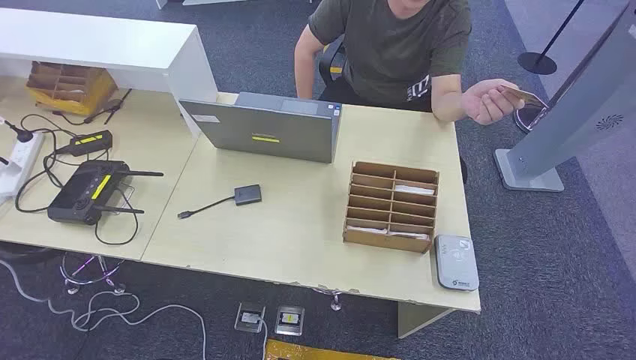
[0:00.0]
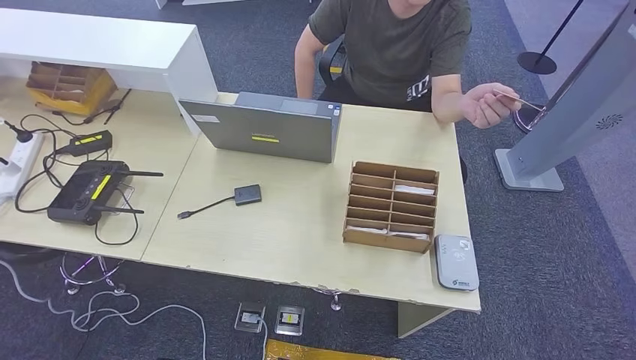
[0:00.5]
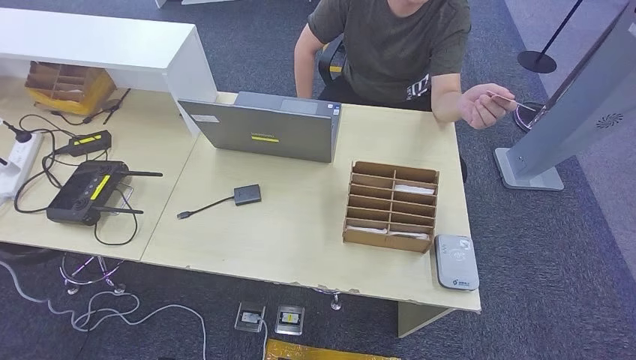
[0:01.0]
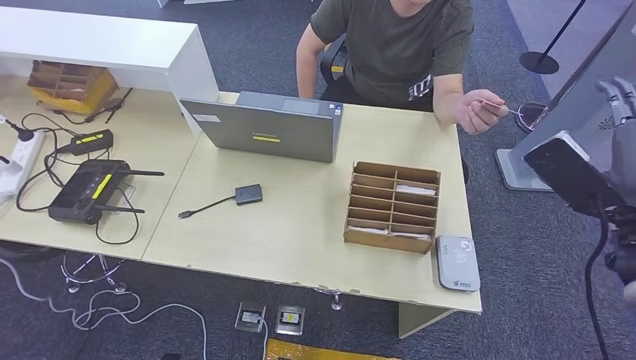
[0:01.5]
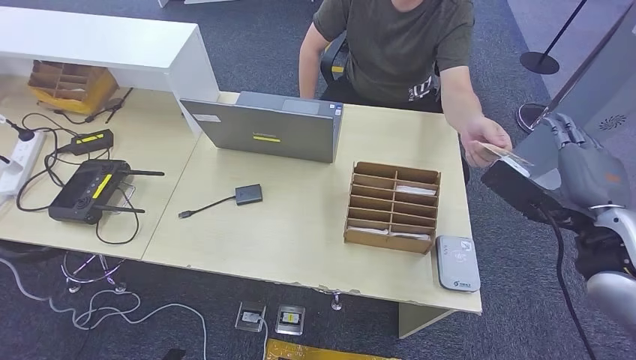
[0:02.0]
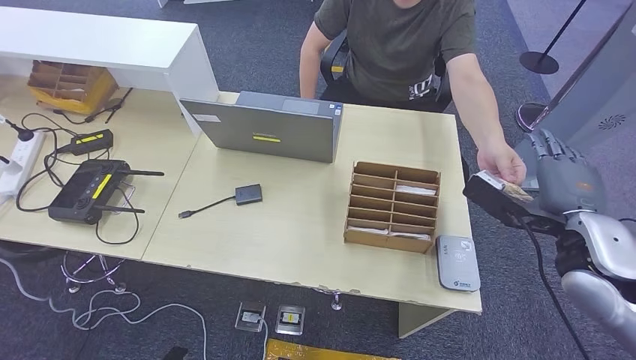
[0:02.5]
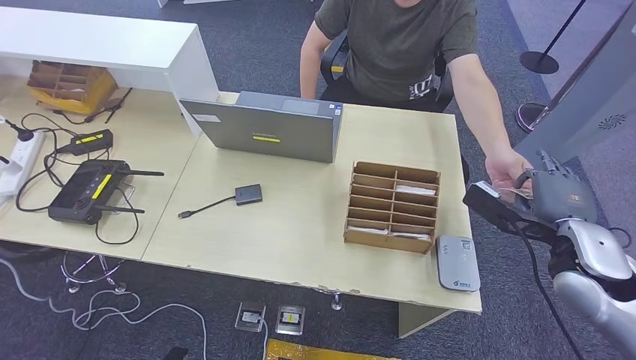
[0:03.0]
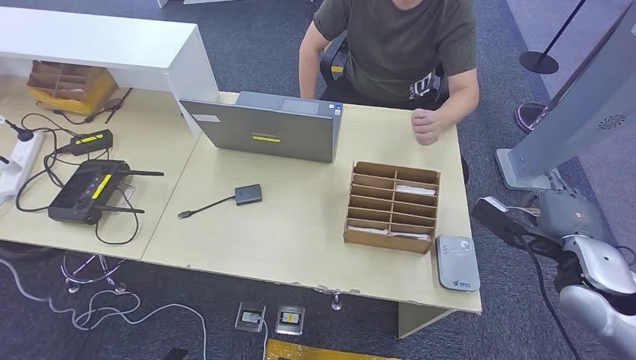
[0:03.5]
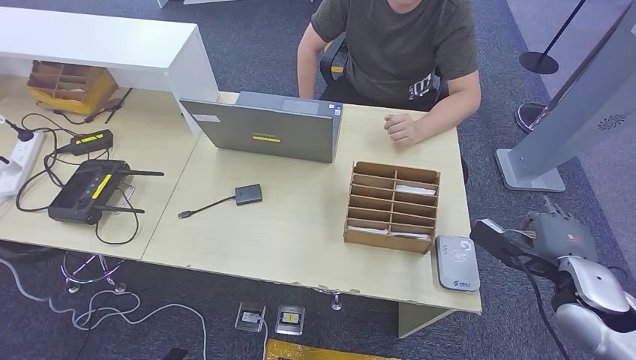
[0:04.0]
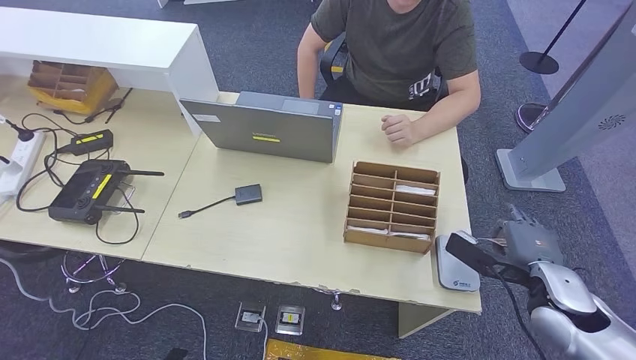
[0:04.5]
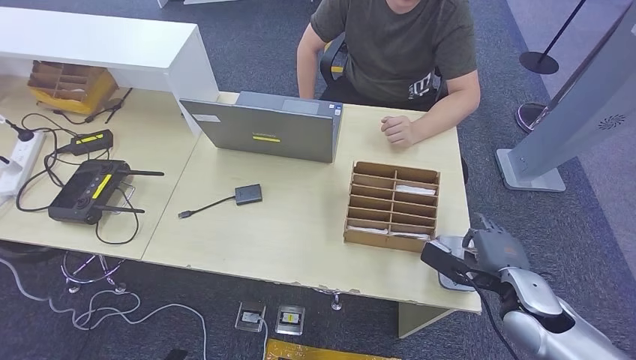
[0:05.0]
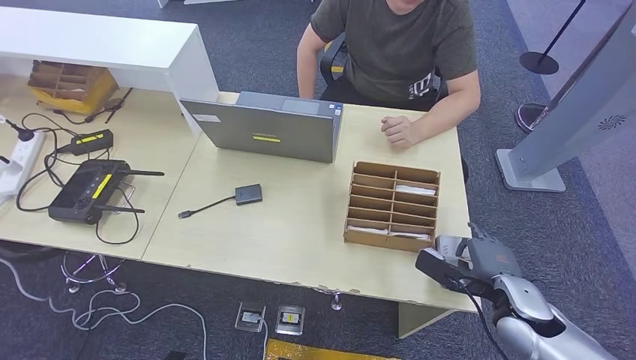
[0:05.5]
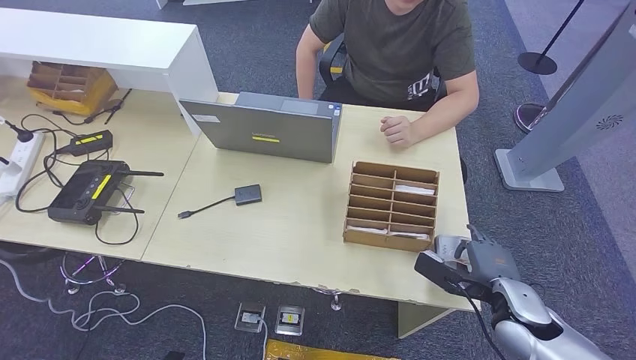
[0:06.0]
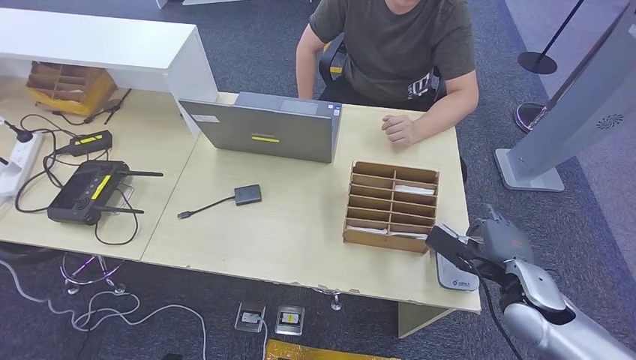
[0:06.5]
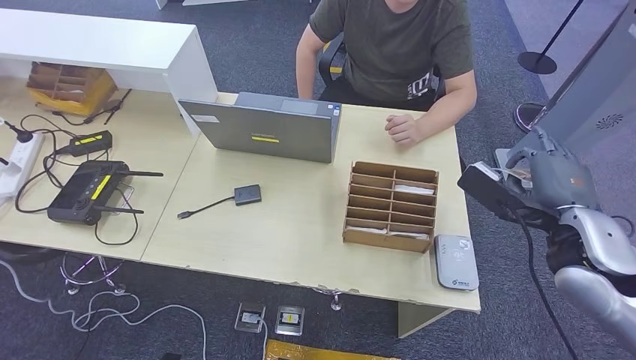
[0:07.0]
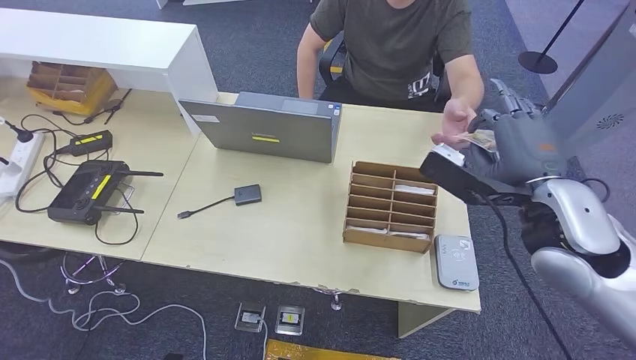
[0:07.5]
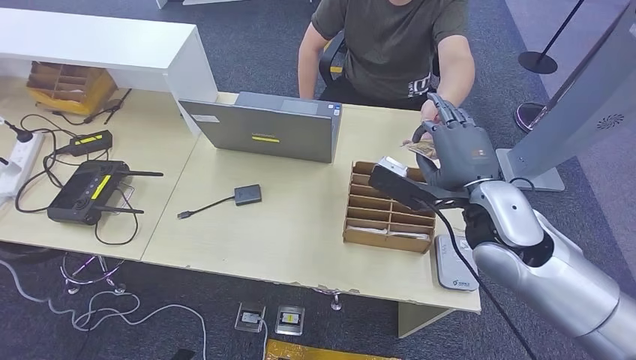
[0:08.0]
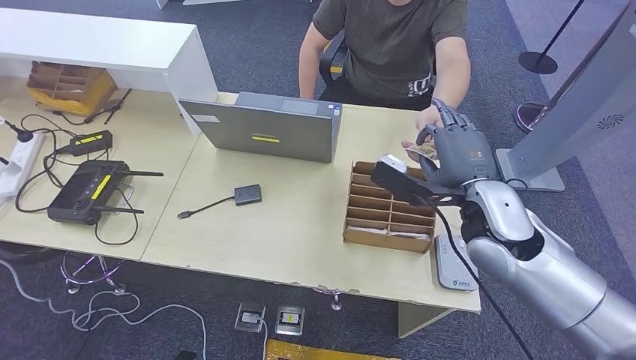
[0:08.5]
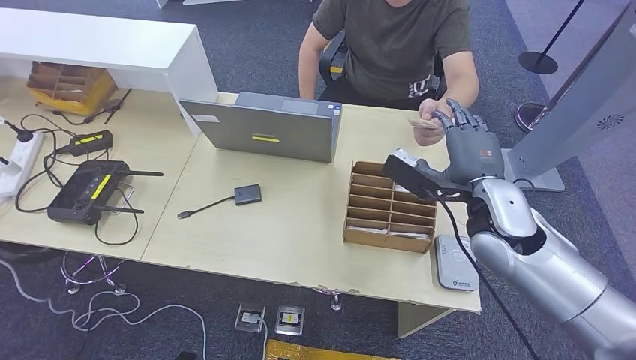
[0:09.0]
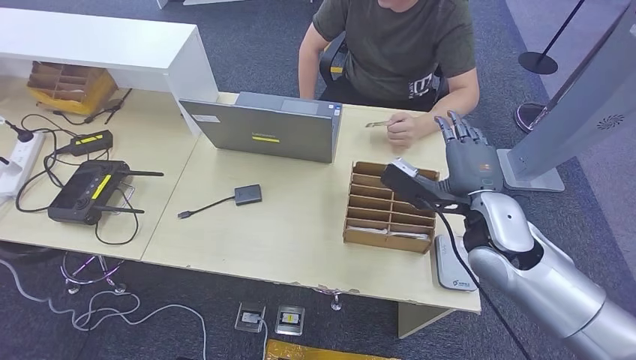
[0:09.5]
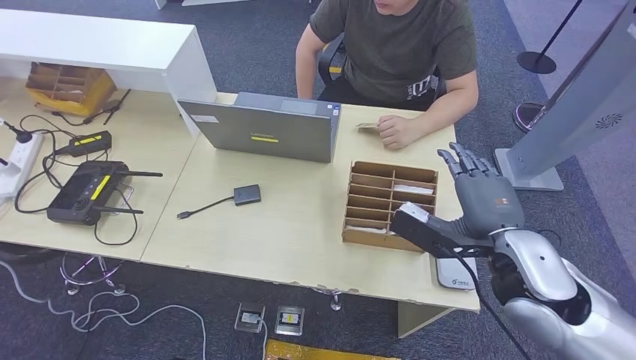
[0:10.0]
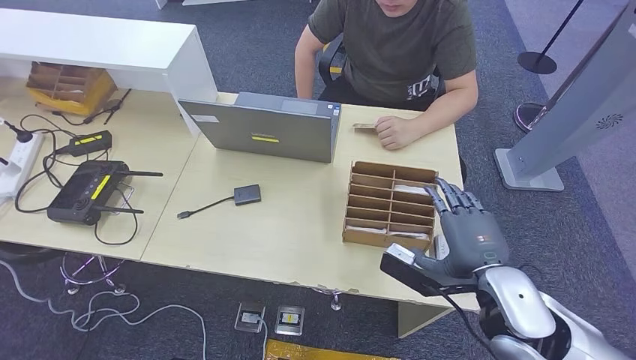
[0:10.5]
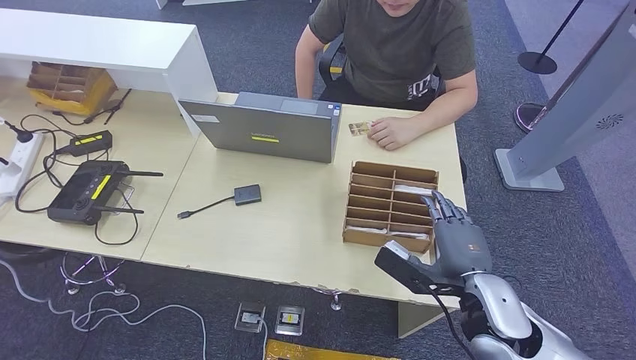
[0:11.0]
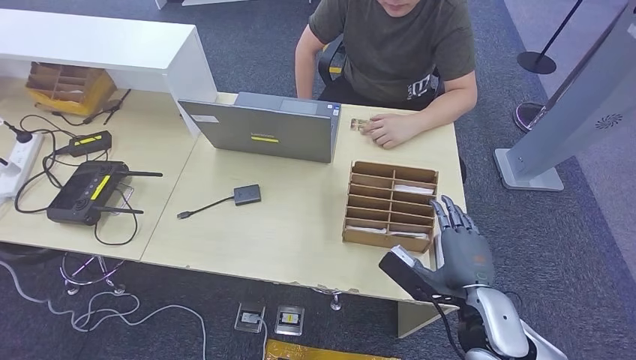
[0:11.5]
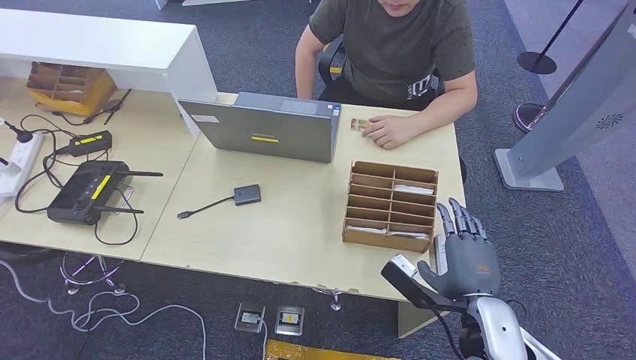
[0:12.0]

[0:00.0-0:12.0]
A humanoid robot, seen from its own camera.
Step, 0:00.0 to 0:03.5: Take the ID card from the person's hand.
Step, 0:04.0 to 0:06.0: Place the ID card on the card reader.
Step, 0:06.5 to 0:09.0: Hand the ID card to the person.
0:02.0 to 0:04.0: The right hand heads downward, covering about 10 cm.
0:04.0 to 0:06.0: The right hand shifts some 10 cm downward and to the left.
0:06.0 to 0:08.0: The right hand moves upward and to the left, approximately 20 cm.
0:08.0 to 0:10.0: The right hand travels backward by about 5 cm.
0:10.0 to 0:12.0: The right hand travels downward and backward by approximately 15 cm.

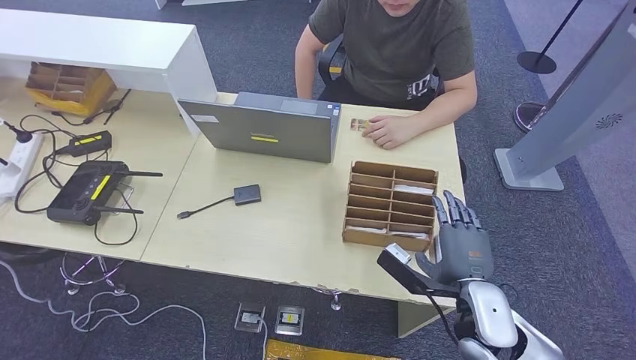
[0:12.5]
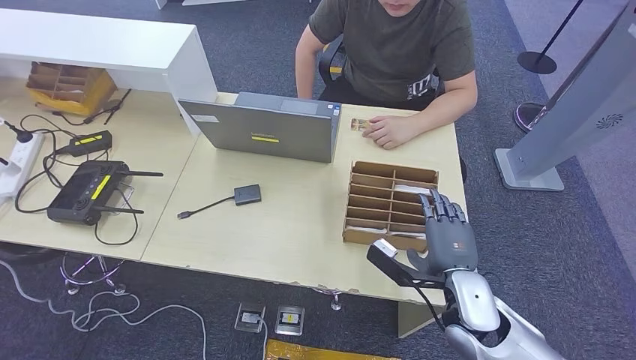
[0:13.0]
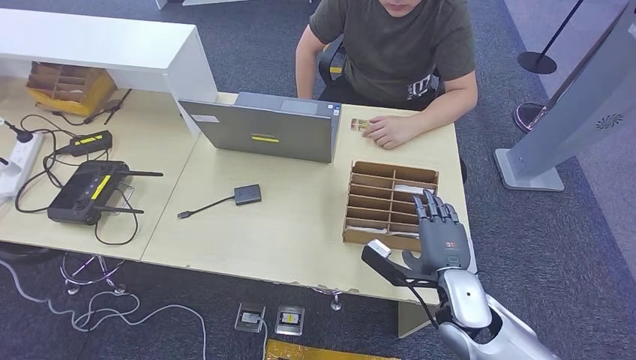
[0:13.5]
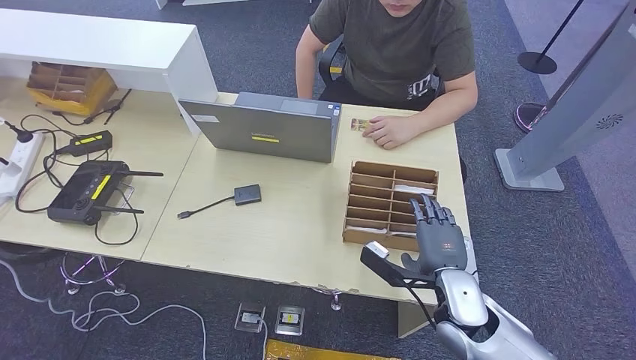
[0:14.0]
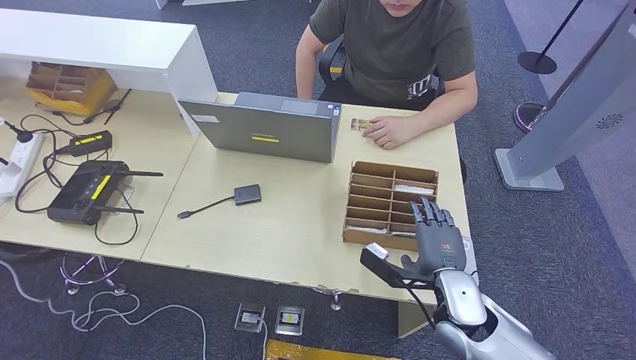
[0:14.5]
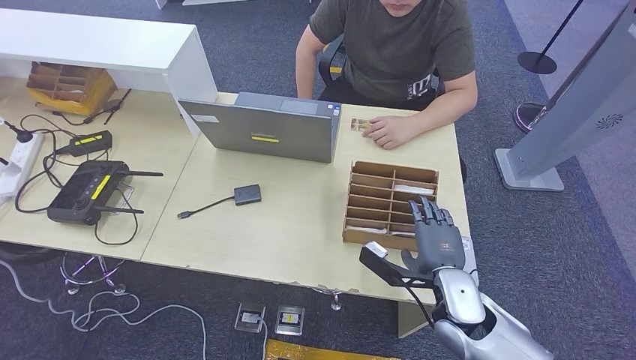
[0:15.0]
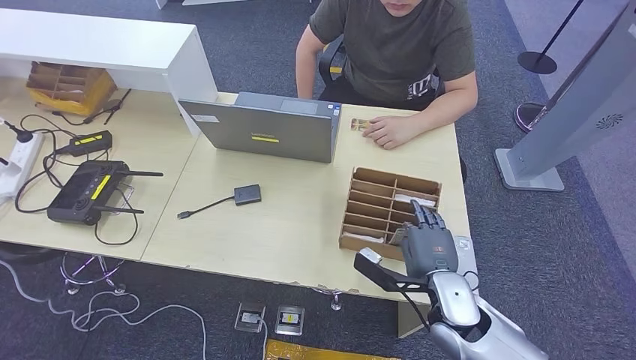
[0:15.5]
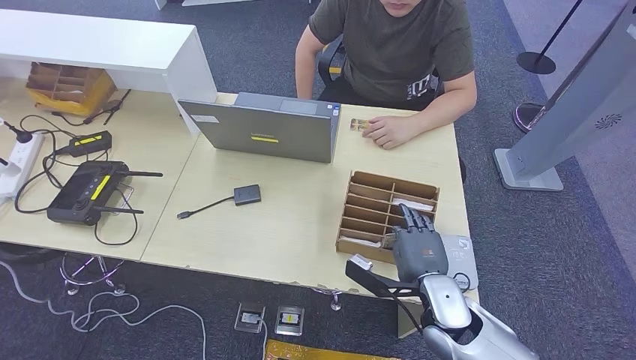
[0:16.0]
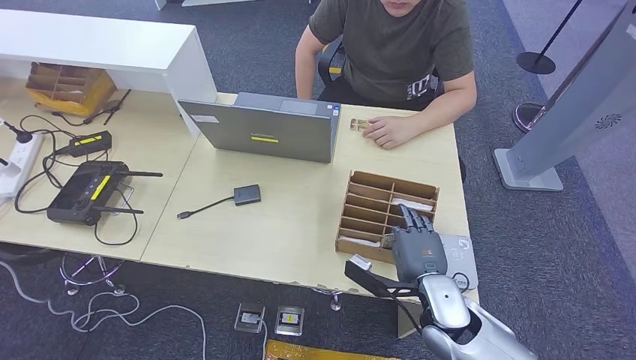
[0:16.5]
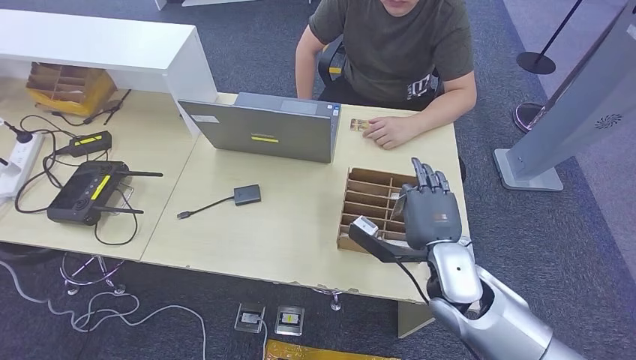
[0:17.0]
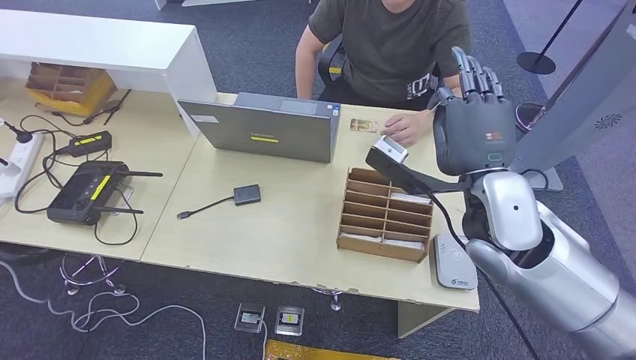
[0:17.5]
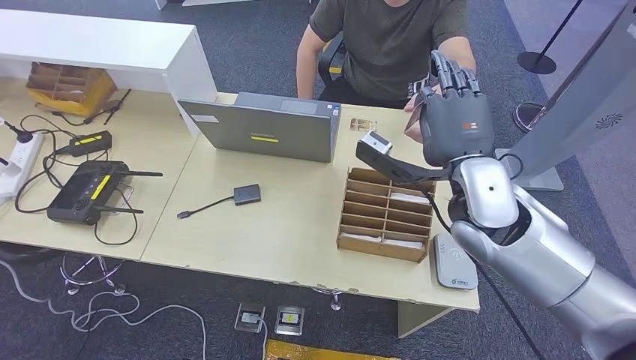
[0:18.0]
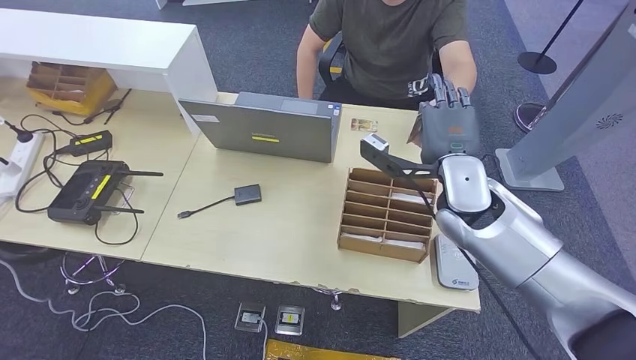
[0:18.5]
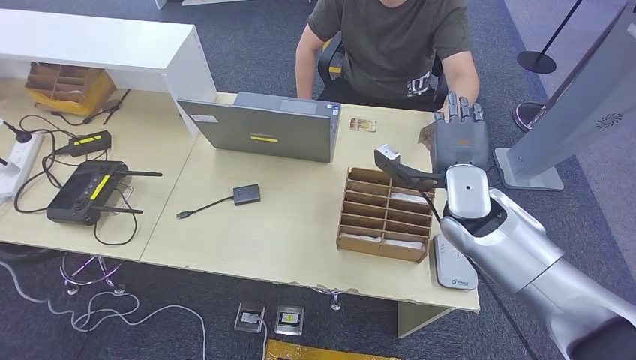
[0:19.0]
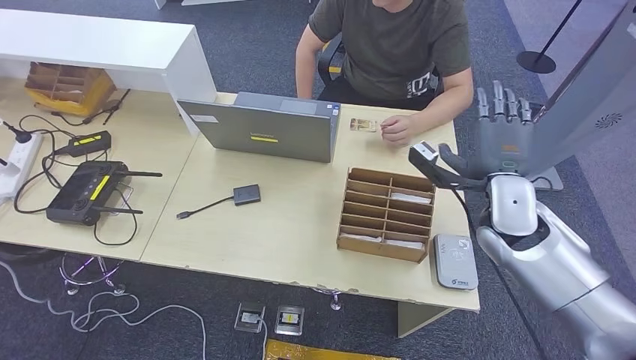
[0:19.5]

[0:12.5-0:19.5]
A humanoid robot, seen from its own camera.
Step, 0:12.5 to 0:17.0: Pick up the room key from the key card box.
Step, 0:17.5 to 0:19.5: Hand the room key to the person.
0:12.5 to 0:14.5: There are only small adjustments of the hands.
0:14.5 to 0:16.0: The hands make only small movements.
0:16.0 to 0:17.5: The right hand heads upward, covering approximately 25 cm.
0:17.5 to 0:19.5: The right hand travels downward and to the right by approximately 10 cm.
